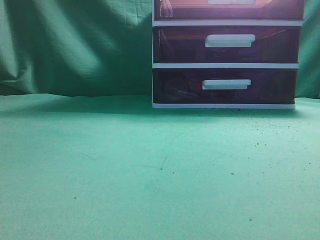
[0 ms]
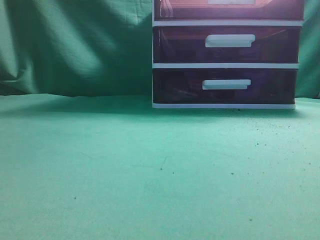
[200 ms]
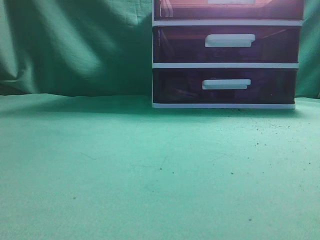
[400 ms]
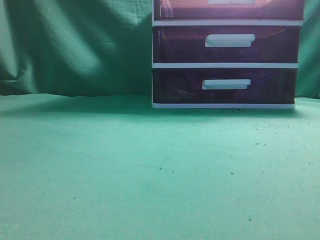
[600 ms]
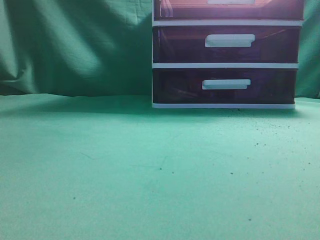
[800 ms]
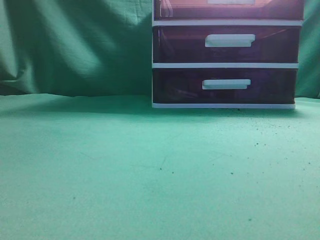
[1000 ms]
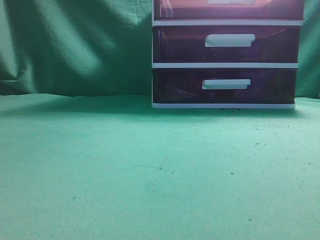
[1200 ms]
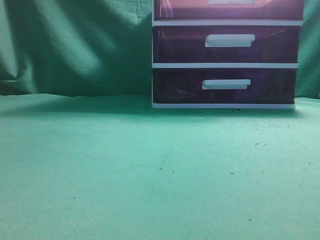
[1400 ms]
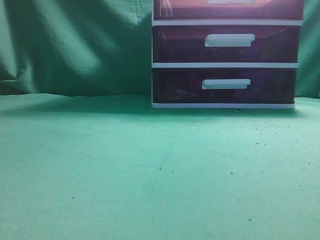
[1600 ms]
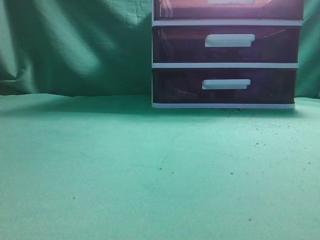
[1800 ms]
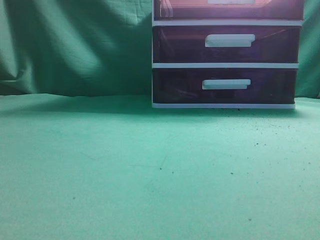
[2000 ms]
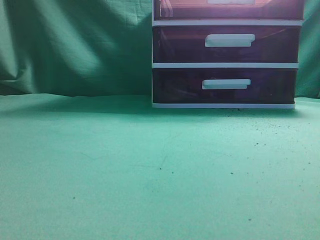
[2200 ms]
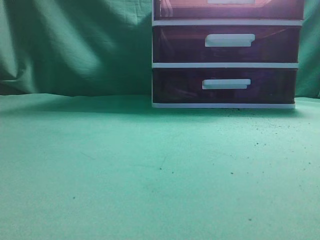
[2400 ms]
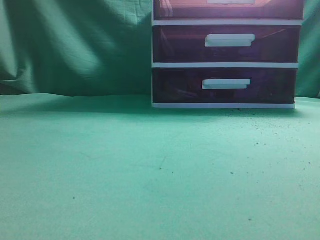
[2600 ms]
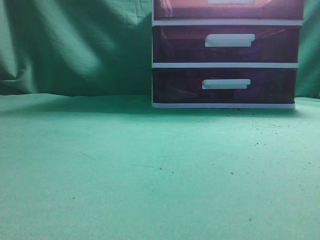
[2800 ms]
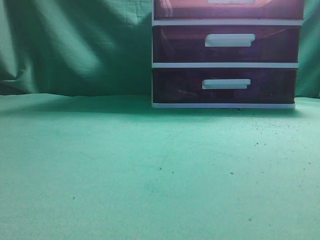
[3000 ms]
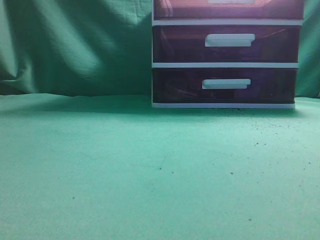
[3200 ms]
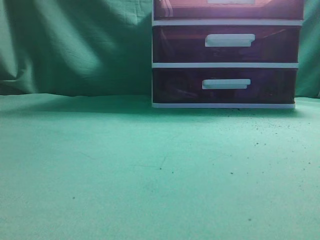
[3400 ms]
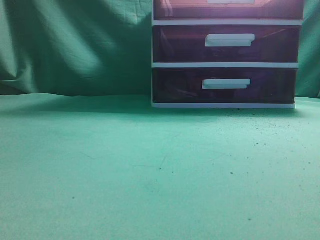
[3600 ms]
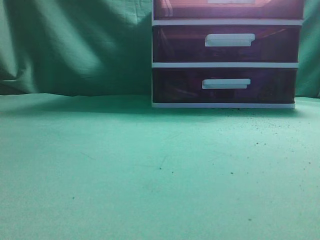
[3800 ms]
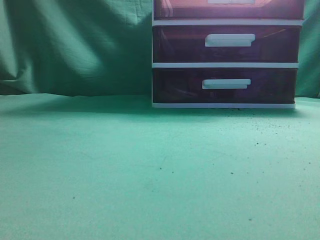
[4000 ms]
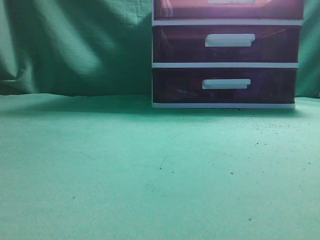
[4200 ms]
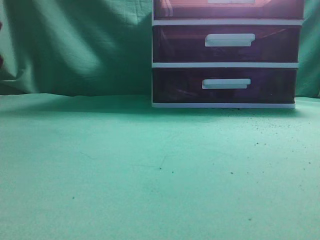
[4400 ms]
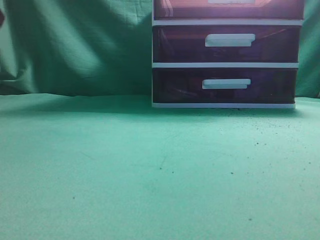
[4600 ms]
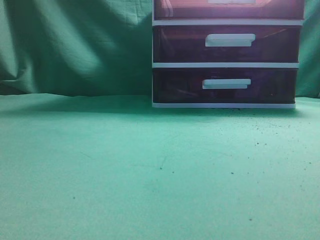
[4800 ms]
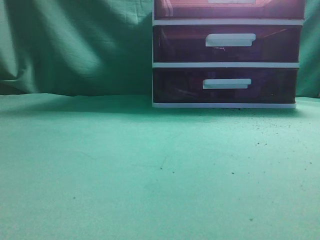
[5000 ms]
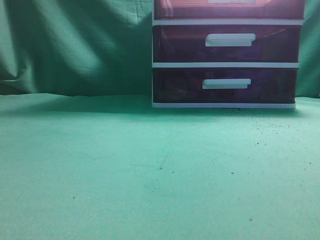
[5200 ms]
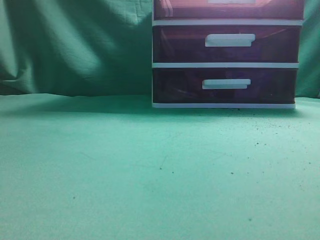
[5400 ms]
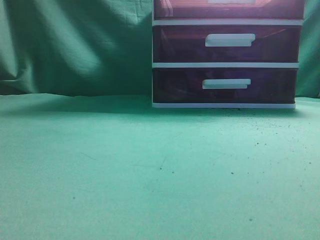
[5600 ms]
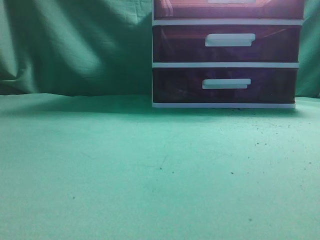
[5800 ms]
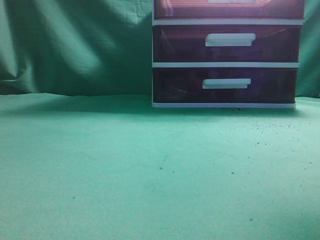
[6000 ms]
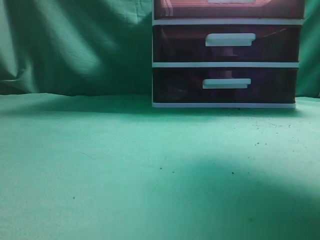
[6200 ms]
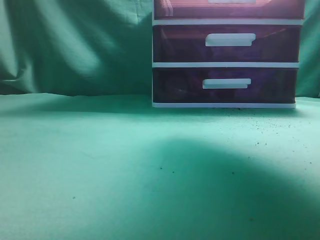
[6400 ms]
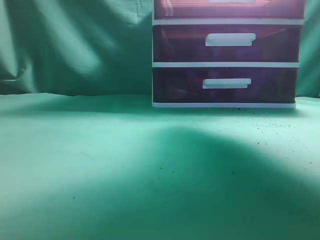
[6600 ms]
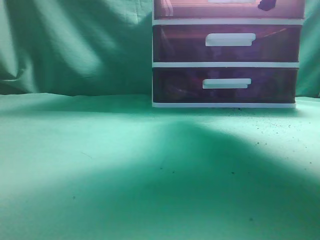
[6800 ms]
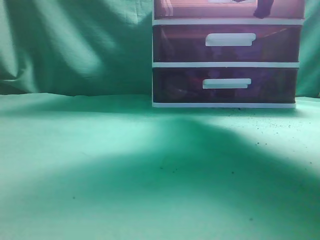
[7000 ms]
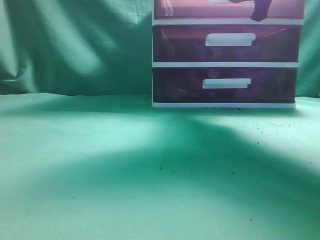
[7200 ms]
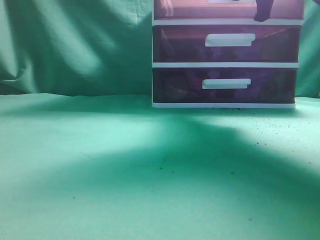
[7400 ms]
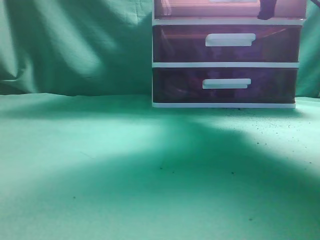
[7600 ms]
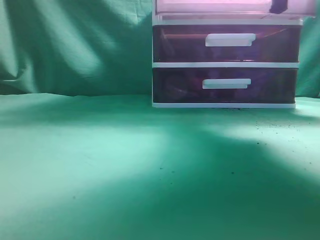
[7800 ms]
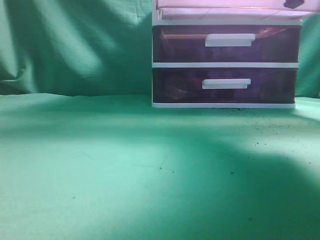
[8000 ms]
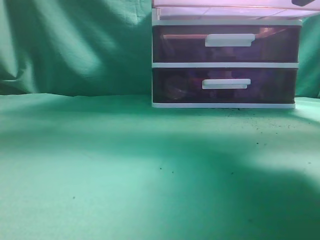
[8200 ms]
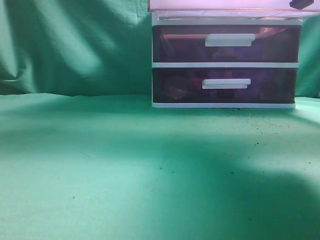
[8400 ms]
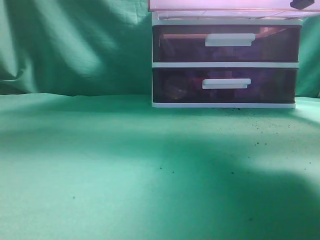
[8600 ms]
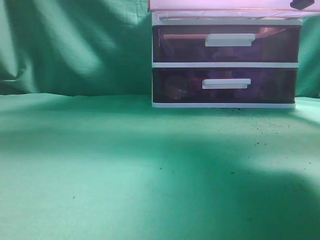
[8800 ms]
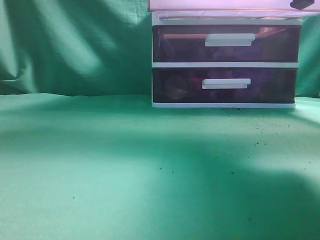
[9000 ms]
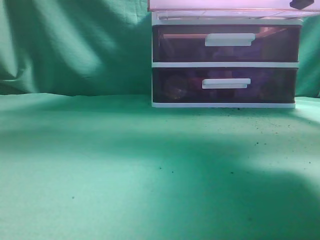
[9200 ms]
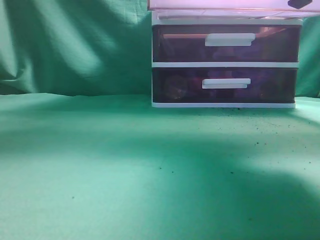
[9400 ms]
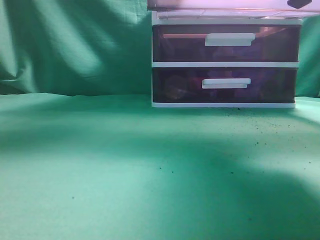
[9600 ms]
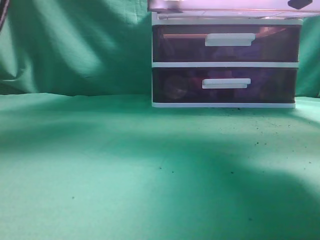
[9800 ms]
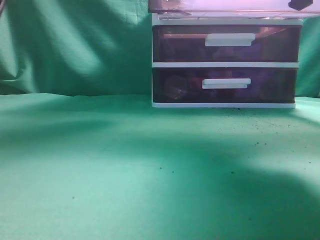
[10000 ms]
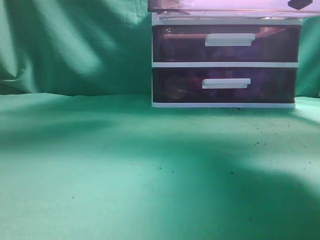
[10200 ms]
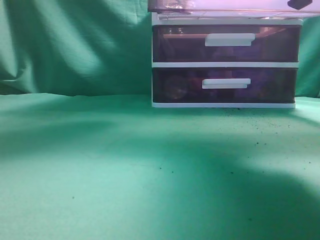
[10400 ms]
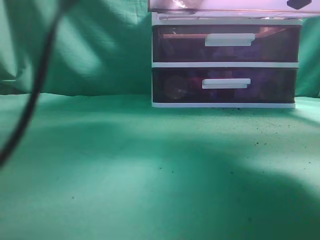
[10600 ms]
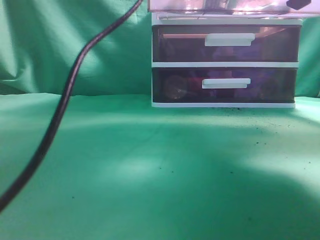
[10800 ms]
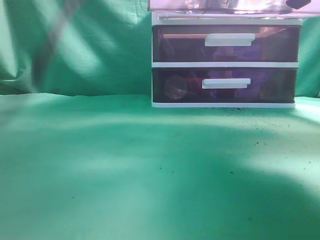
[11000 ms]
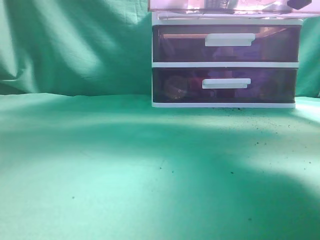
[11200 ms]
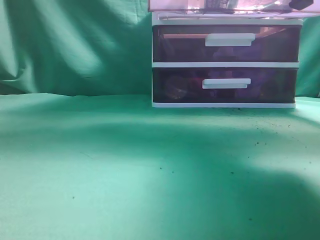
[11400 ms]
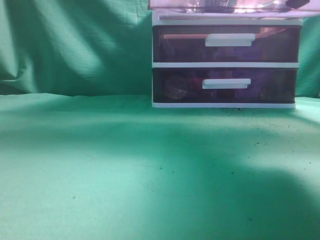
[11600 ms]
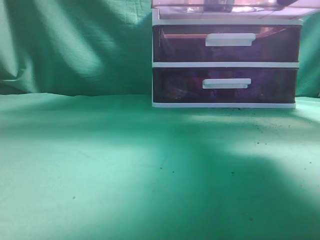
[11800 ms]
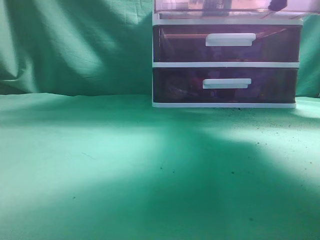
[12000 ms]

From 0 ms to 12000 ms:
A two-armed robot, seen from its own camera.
Task of the whole recording: place the water bottle into the drawer.
Step, from 0 ms to 8200 ms: Open the drawer.
Step, from 8600 ms to 11200 ms: Place the water bottle inside the drawer.
From 4400 ms to 6000 ms: The right gripper heads forward and upward, covering some 25 cm.
From 6000 ms to 7600 ms: The right gripper moves forward, roughly 15 cm.
From 7600 ms to 9000 ms: The left gripper goes about 15 cm upward and to the right; the right gripper heads backward, covering about 10 cm.
From 9000 ms to 10400 ms: The left gripper shifts approximately 20 cm forward, to the right and downward, and opens its fingers.
From 10400 ms to 12000 ms: The left gripper is displaced backward, to the left and upward by approximately 25 cm, and closes; the right gripper goes about 5 cm forward.

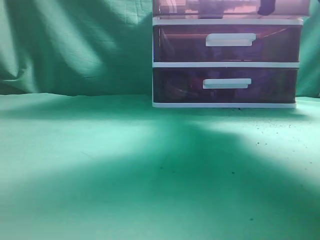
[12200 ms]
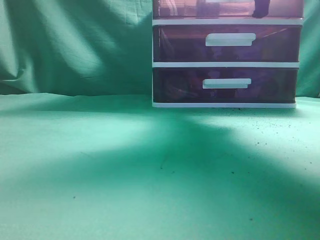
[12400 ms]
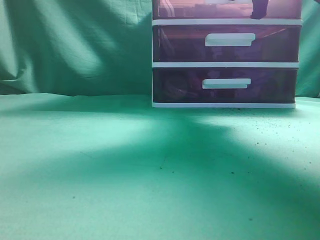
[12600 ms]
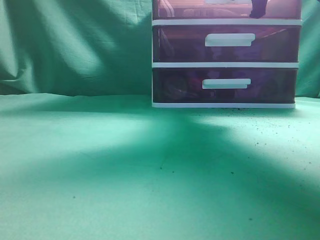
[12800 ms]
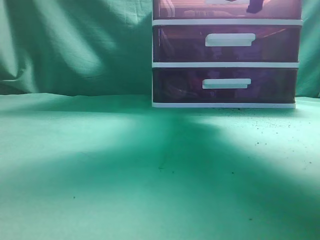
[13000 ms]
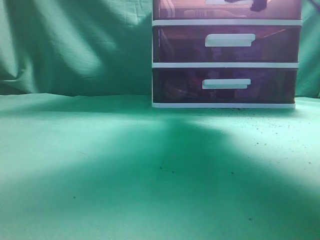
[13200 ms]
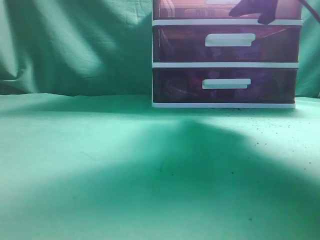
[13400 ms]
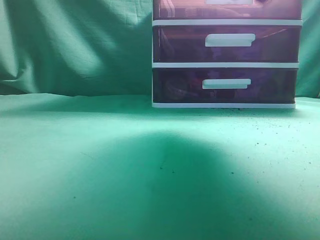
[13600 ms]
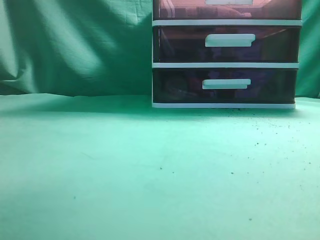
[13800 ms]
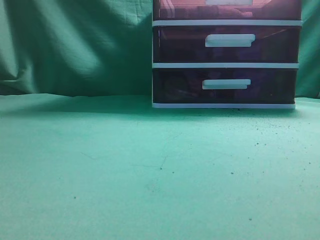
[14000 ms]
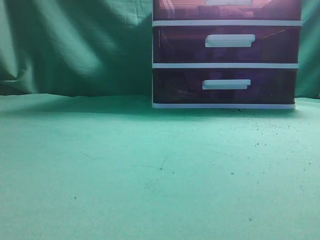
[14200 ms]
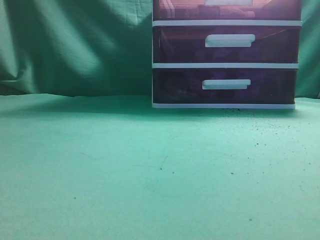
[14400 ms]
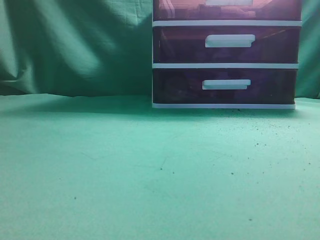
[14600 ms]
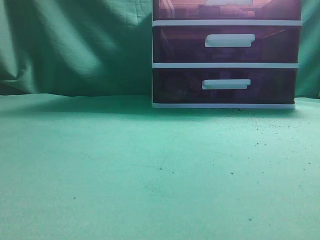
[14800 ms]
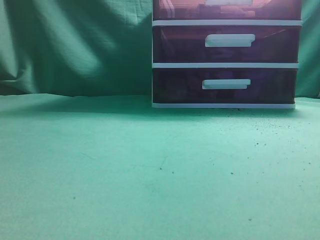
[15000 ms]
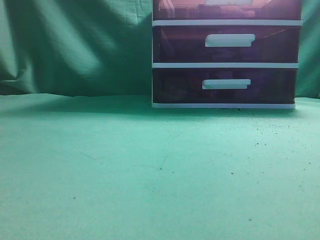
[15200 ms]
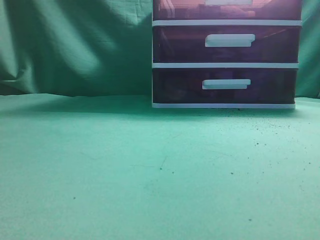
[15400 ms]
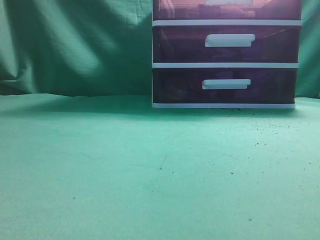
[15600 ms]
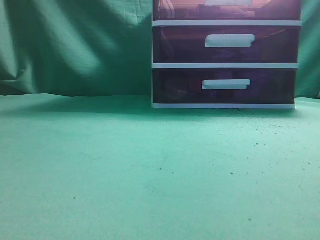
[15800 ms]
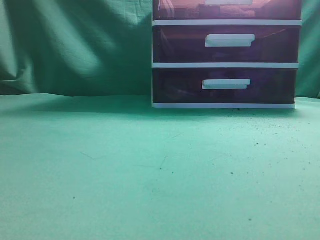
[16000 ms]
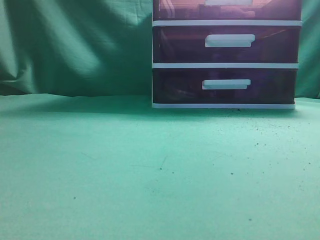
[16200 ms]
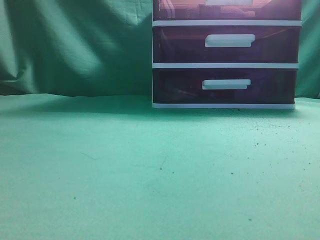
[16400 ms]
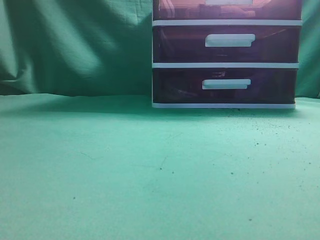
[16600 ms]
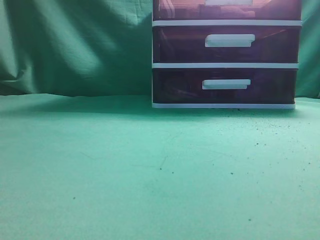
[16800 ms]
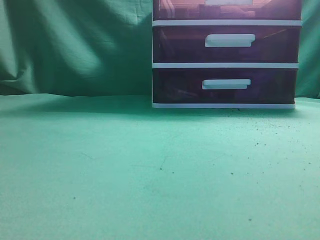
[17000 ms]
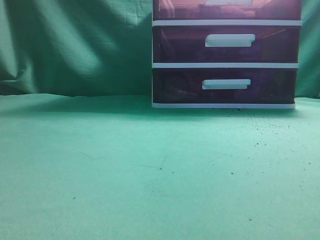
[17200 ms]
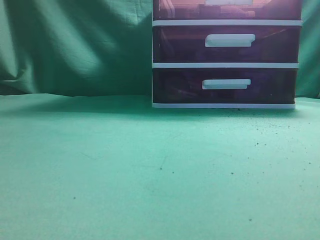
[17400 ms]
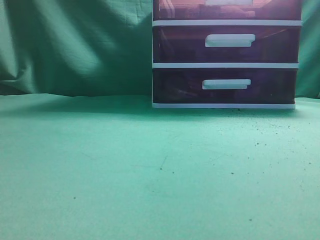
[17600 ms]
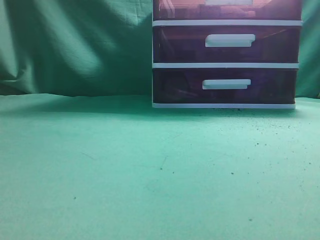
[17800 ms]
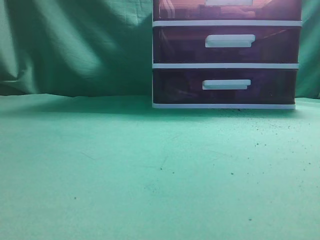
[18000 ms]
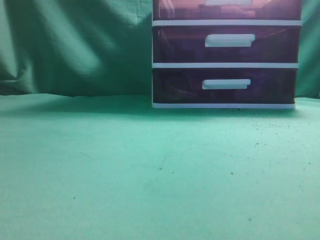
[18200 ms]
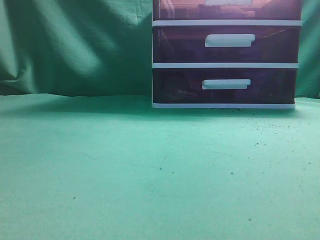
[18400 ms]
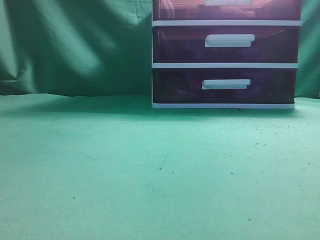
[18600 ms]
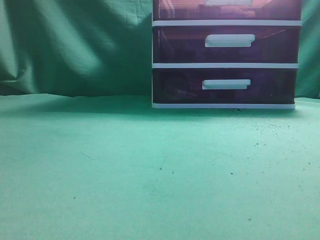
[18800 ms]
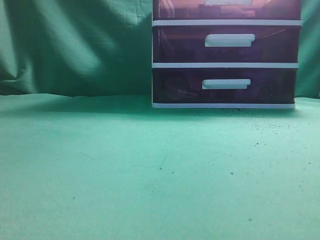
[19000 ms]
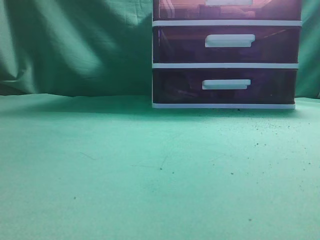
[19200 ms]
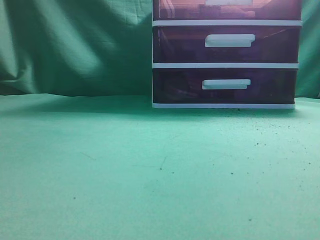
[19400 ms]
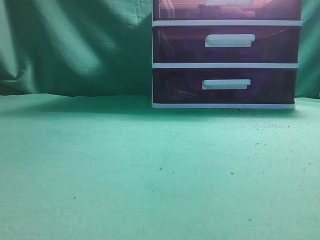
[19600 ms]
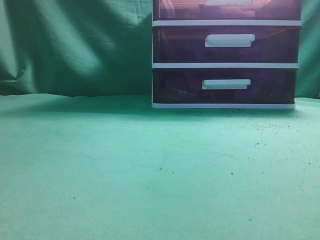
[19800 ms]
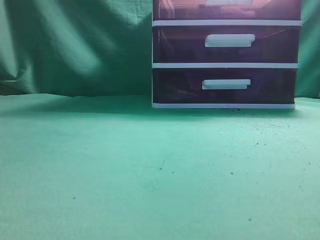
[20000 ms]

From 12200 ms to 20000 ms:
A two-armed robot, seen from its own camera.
Task of the whole recording: place the water bottle into the drawer.
Step, from 12200 ms to 13400 ms: Close the drawer.
From 12200 ms to 13800 ms: The right gripper goes roughly 10 cm backward and upward, and opens. Meanwhile the left gripper changes place by roughly 5 cm.
From 13800 ms to 15400 ms: The left gripper moves downward and backward, some 20 cm, while the right gripper is displaced backward by roughly 30 cm, and closes up.
